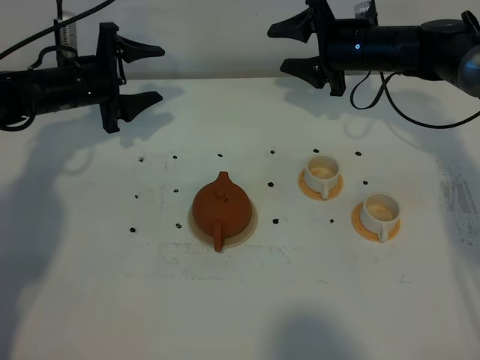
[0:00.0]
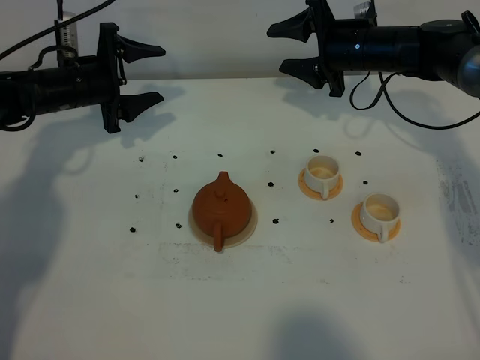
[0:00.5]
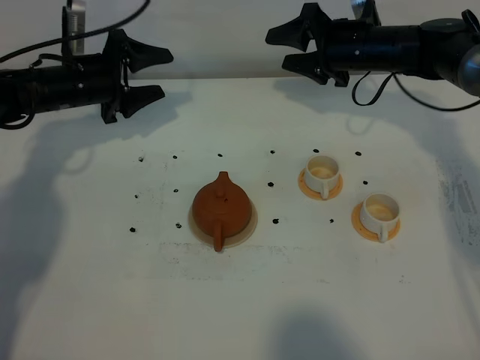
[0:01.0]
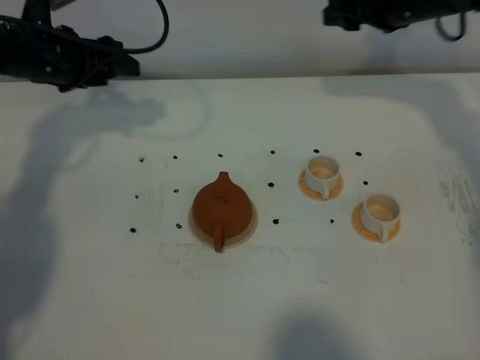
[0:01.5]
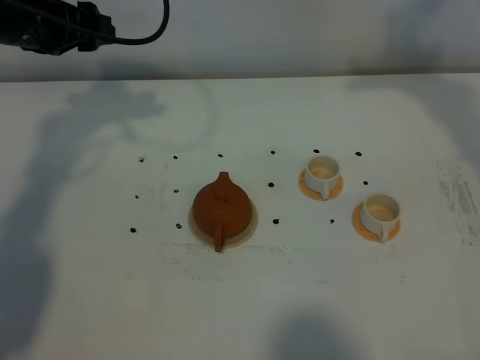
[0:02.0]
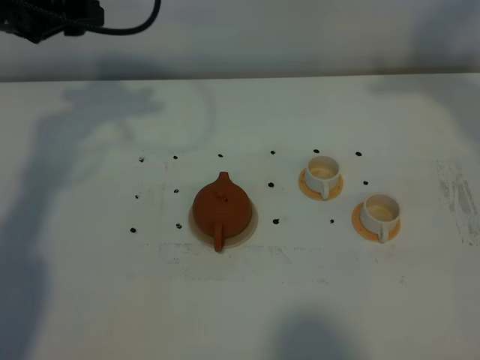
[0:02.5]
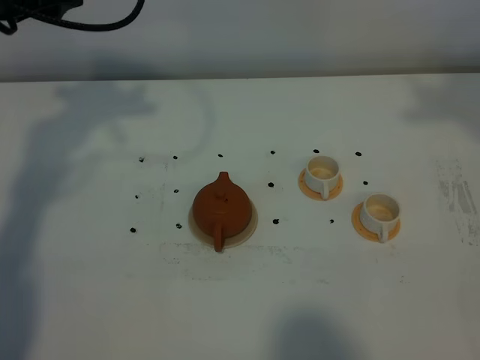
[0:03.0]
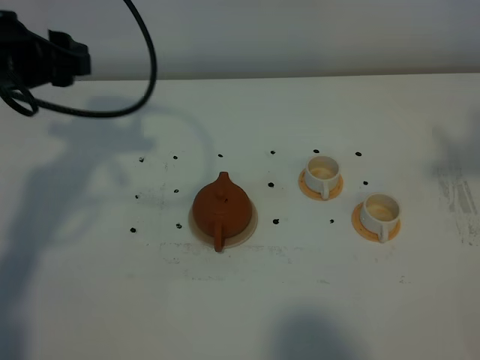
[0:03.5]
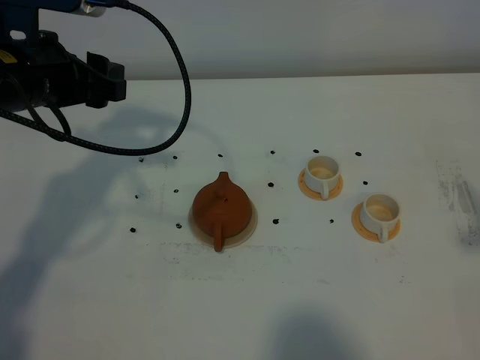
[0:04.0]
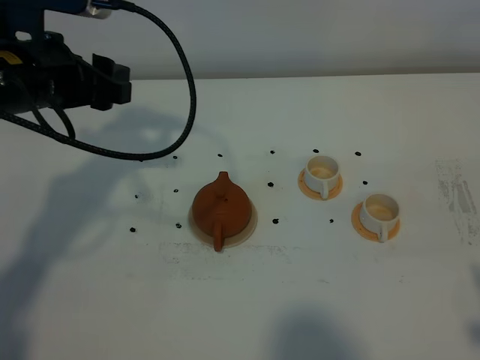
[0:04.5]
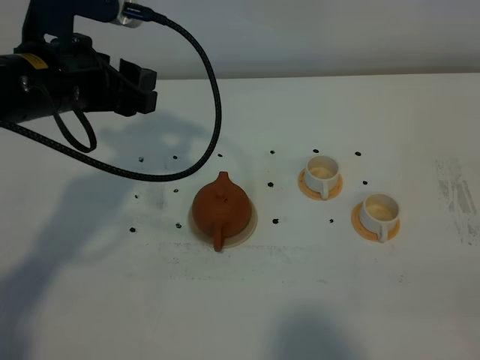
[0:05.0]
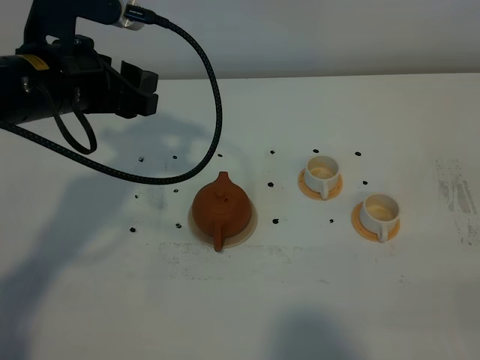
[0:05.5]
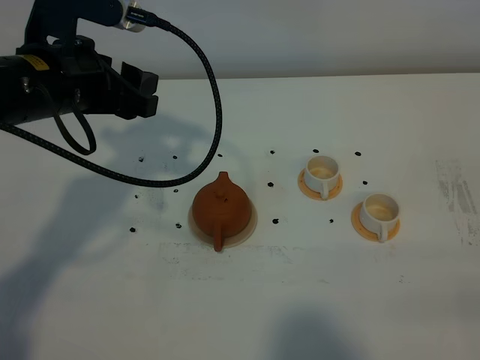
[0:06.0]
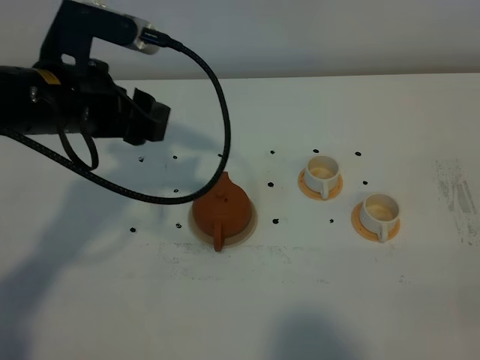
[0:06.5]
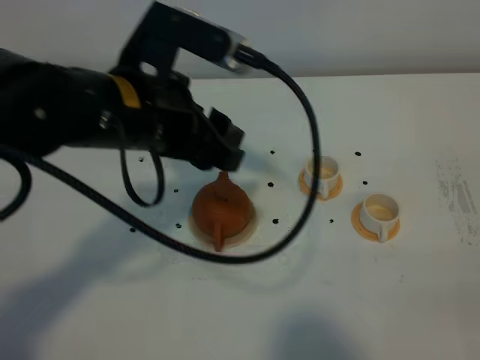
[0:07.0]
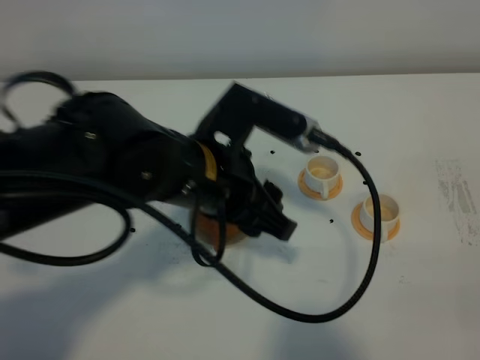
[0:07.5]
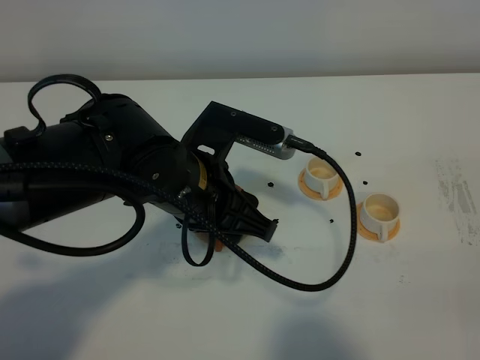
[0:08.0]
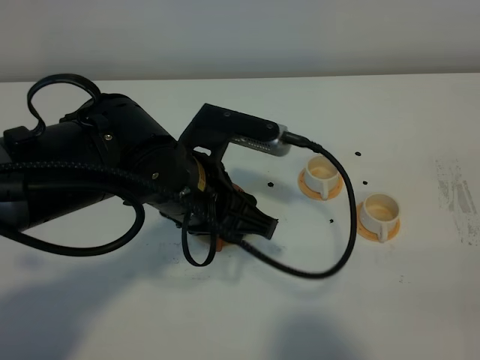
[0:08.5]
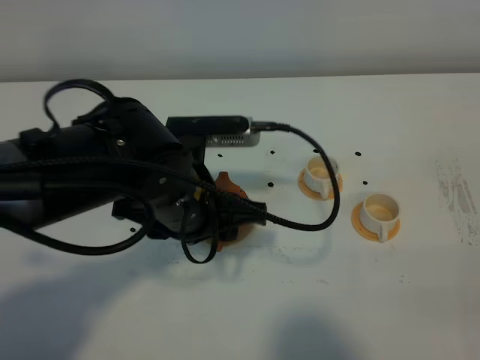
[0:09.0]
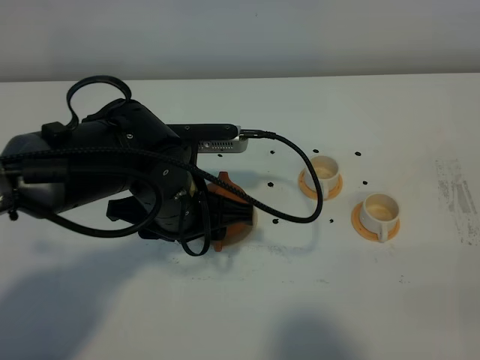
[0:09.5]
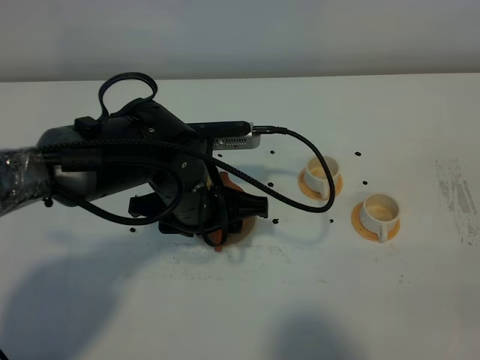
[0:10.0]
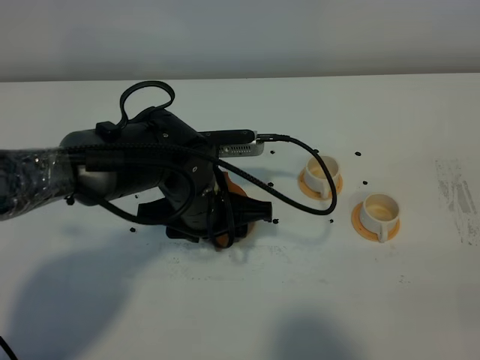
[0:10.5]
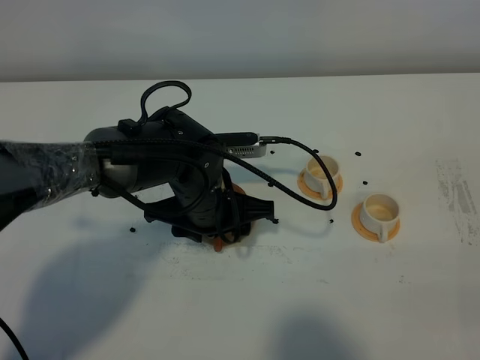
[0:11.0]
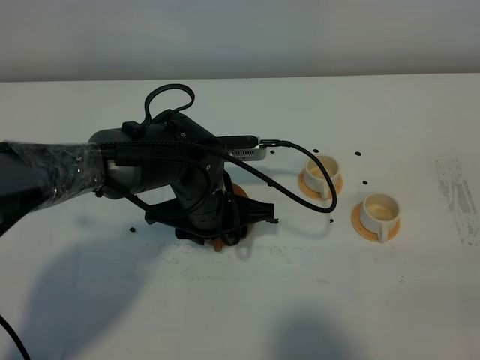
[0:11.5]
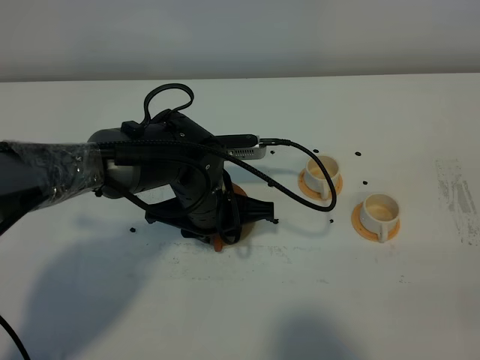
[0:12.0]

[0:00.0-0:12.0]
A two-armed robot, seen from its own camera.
Task of the whole recording: grasp the brown teapot and pour the tea into the two white teacups one by one, put the brown teapot back in its original place.
0.0 to 2.0 s: The right gripper heads upward and backward, covering about 20 cm. The left gripper shifts roughly 15 cm upward.
2.0 to 4.0 s: The right gripper is displaced backward by some 30 cm. The left gripper travels backward by roughly 10 cm.
4.0 to 6.0 s: The right gripper moves downward and backward, about 20 cm.
6.0 to 8.0 s: The left gripper travels to the right, backward and downward by roughly 15 cm.
8.0 to 10.0 s: The left gripper moves downward, roughly 5 cm.
10.0 to 12.0 s: The left gripper closes up.

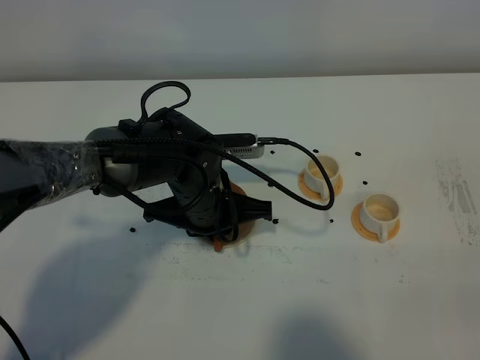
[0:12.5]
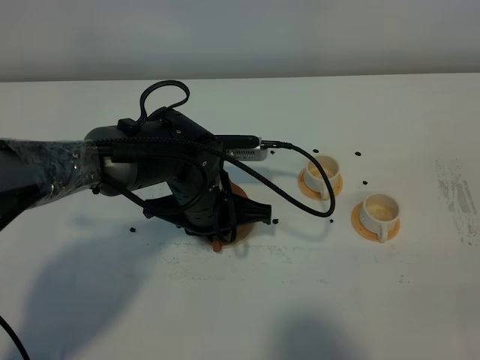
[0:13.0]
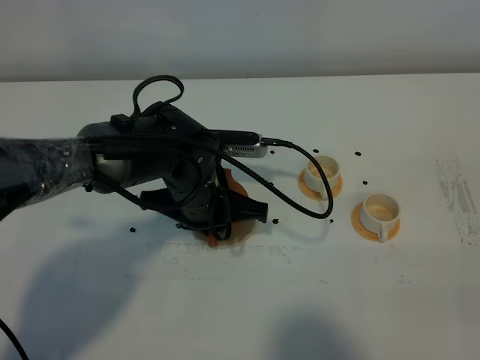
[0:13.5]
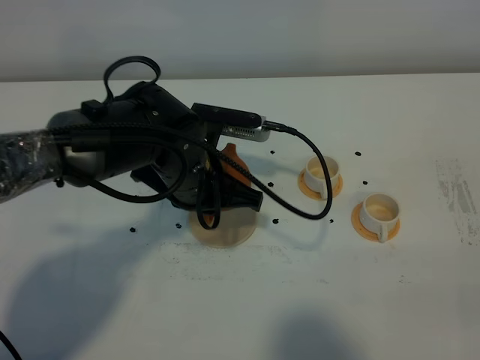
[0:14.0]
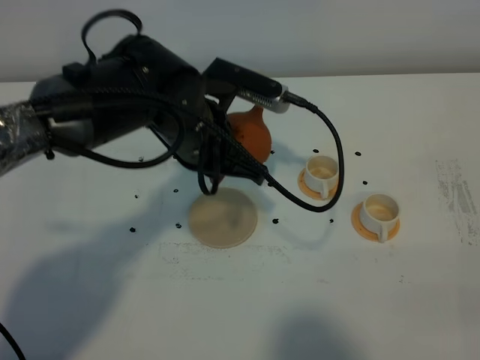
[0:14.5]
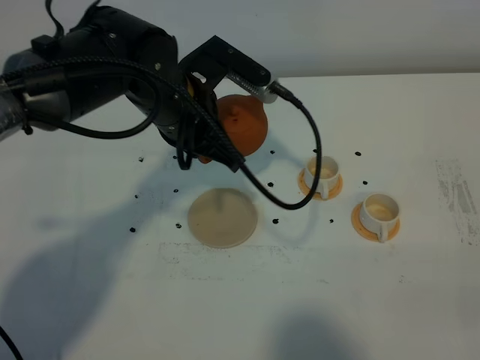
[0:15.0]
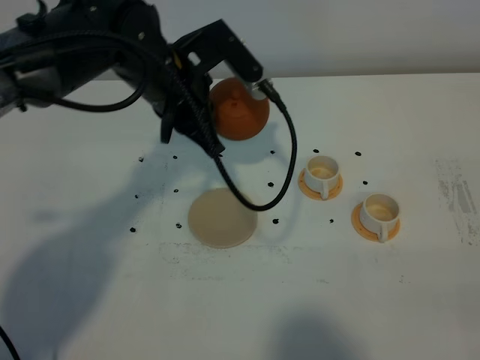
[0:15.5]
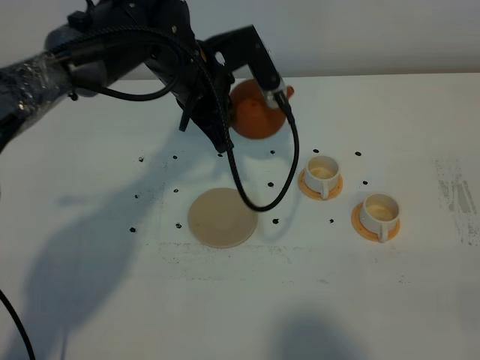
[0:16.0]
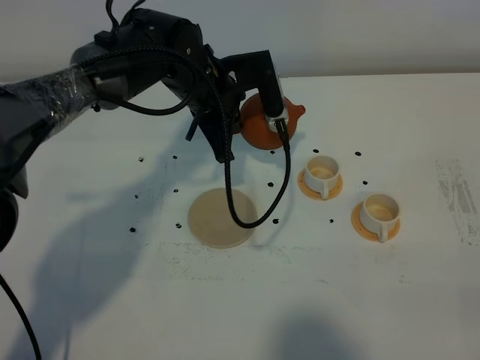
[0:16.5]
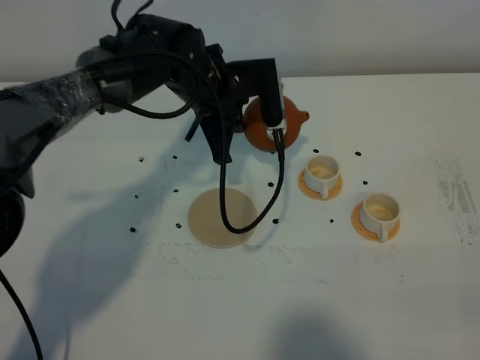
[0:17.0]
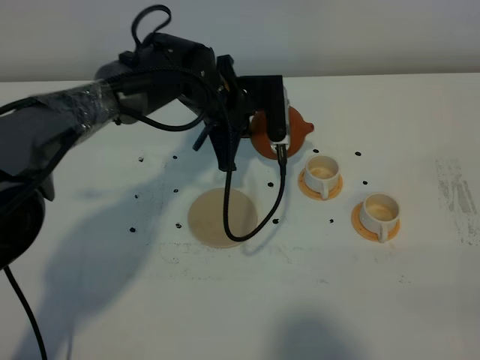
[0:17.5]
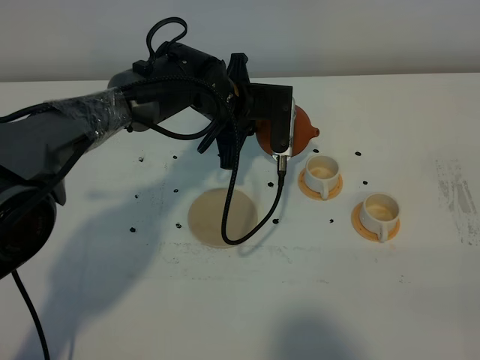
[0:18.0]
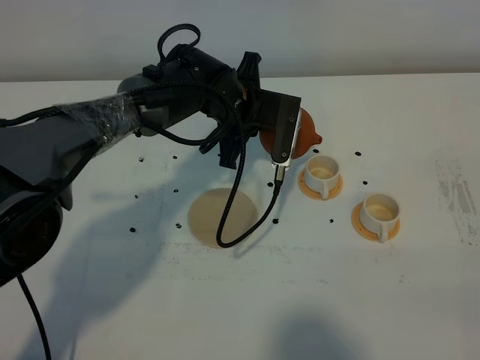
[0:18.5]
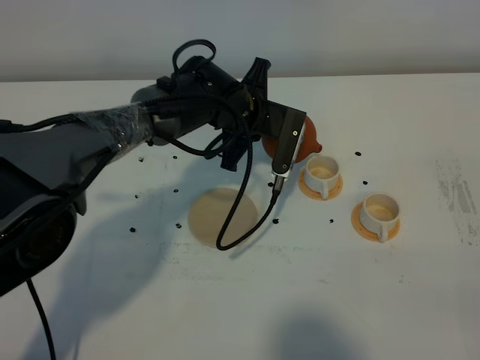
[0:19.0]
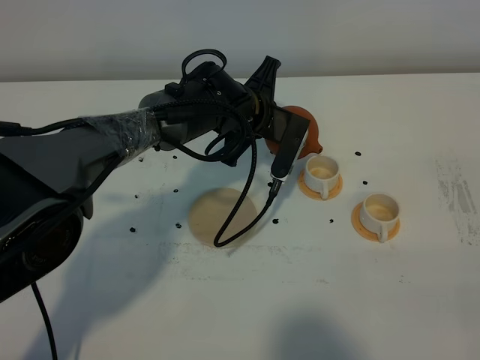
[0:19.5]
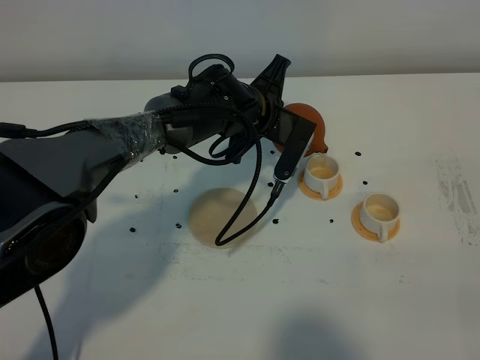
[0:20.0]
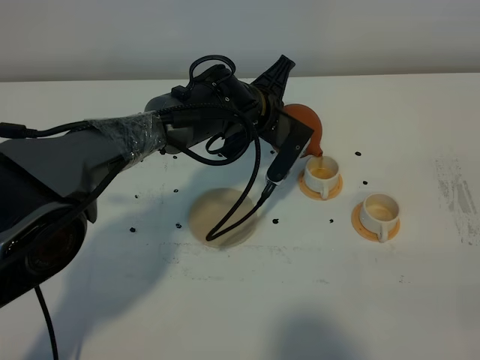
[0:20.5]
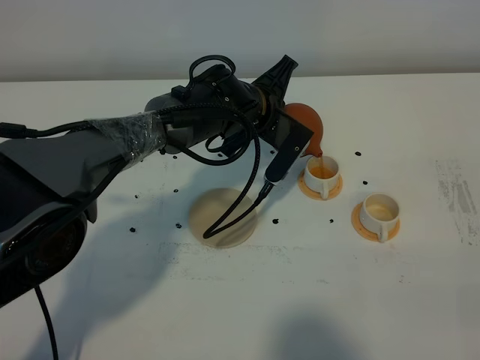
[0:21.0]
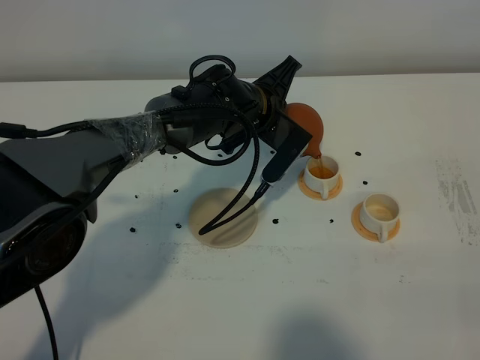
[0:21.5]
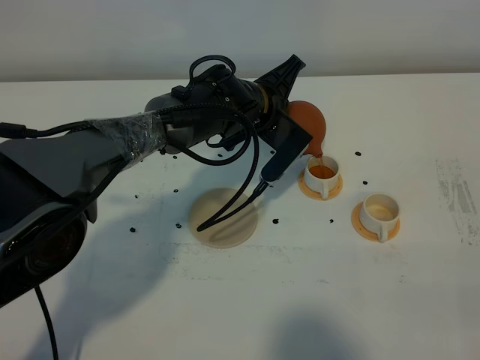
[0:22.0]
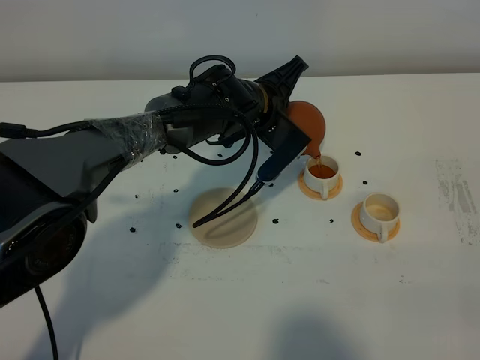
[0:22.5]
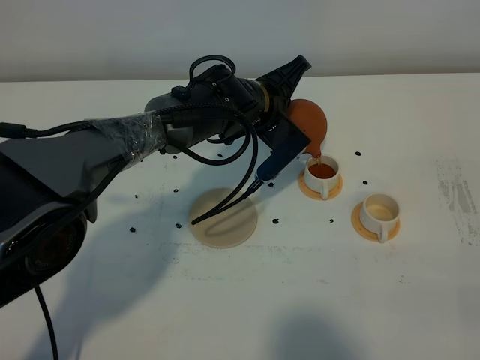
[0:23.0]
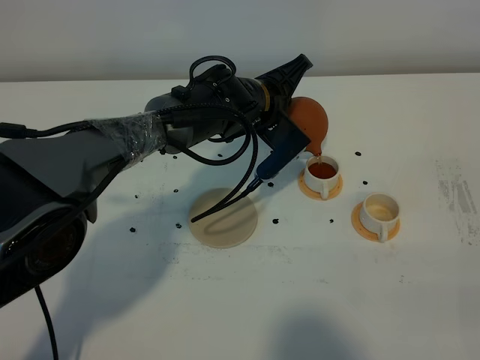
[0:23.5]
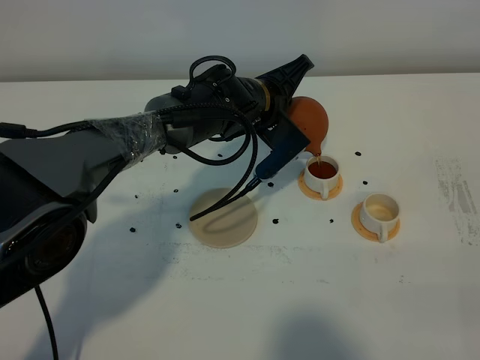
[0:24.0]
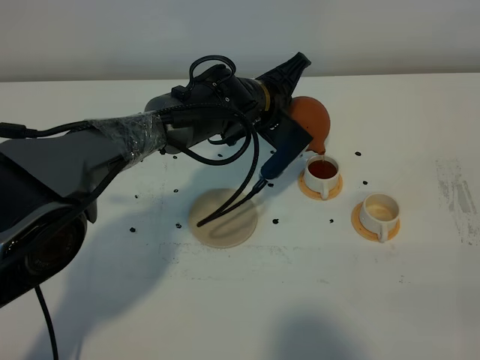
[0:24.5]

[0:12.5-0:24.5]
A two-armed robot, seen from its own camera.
Task of the whole recording: grasp the brown teapot and pour the tea into the two white teacups one by one, put the brown teapot back in its original place.
12.5 to 14.5 s: The left gripper heads upward, covering approximately 10 cm.
14.5 to 16.5 s: The left gripper heads forward, covering roughly 10 cm.
16.5 to 18.5 s: The left gripper ends up some 5 cm from where it was.
20.5 to 24.5 s: The grippers make only small movements.

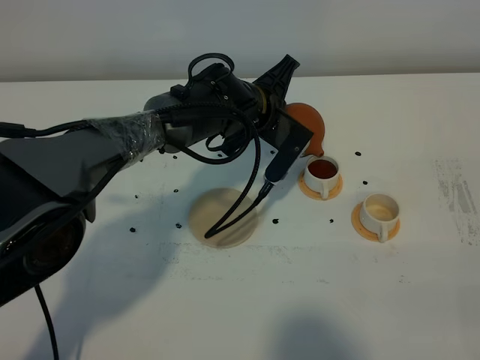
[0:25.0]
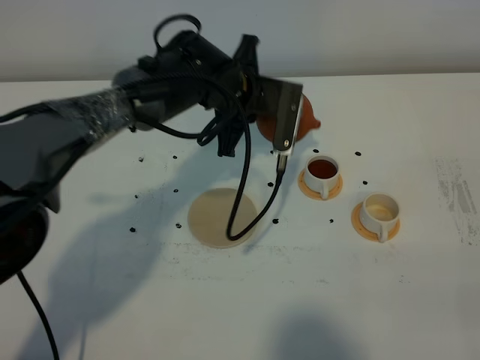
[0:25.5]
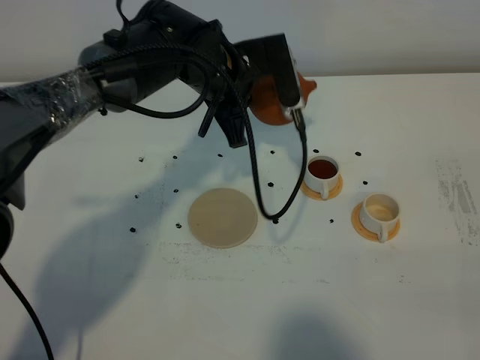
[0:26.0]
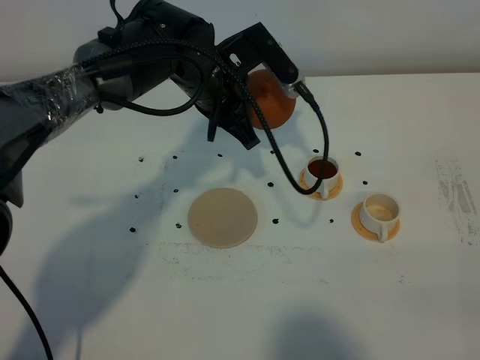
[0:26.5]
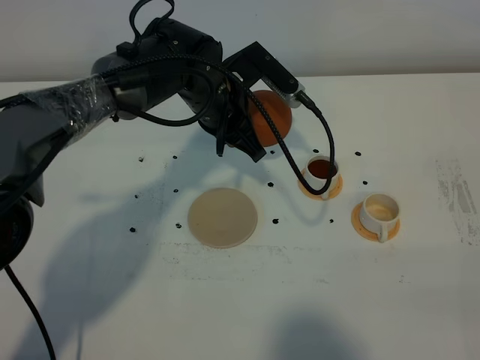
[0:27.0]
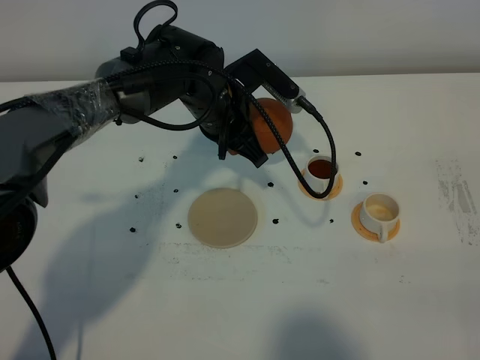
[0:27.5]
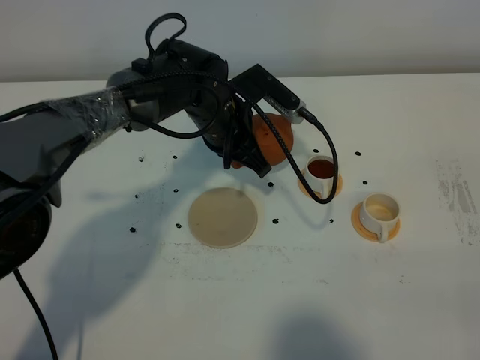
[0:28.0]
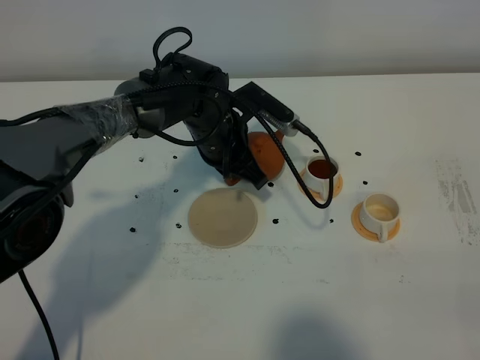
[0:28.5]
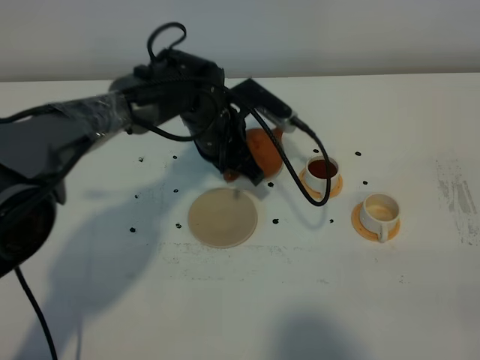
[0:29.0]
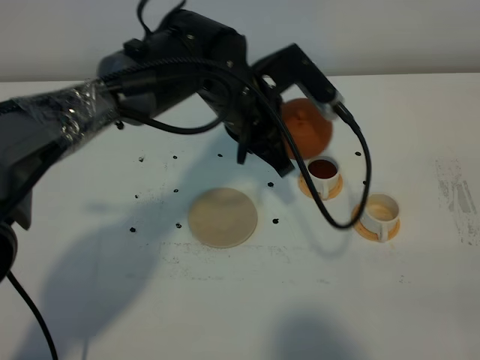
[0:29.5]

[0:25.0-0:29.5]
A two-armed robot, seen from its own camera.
Task of the whole recording: grasp the brown teapot and pour the tea into the two white teacups one by one, put the brown teapot back in its original place.
25.0 to 27.0 s: The left gripper moves approximately 5 cm.
27.0 to 29.5 s: The left gripper ends up about 5 cm from where it was.
